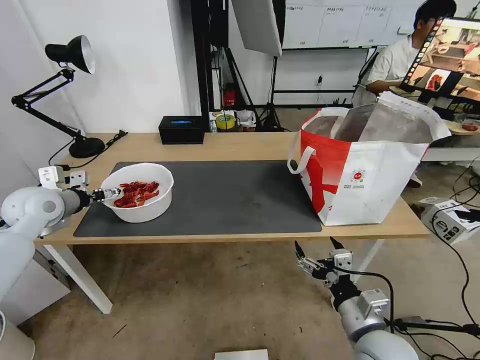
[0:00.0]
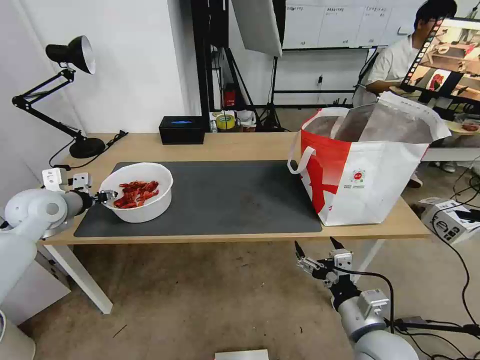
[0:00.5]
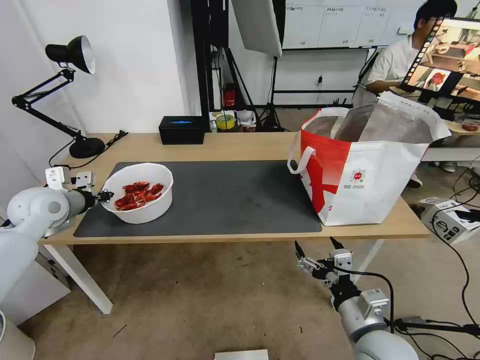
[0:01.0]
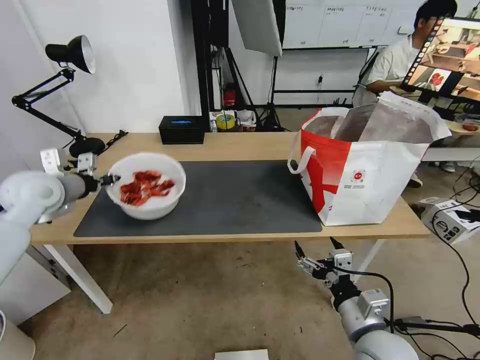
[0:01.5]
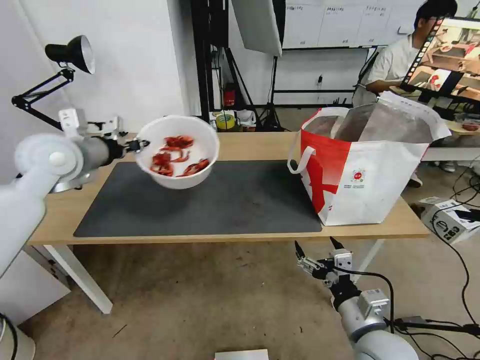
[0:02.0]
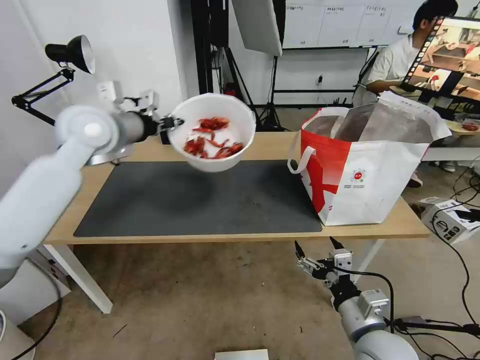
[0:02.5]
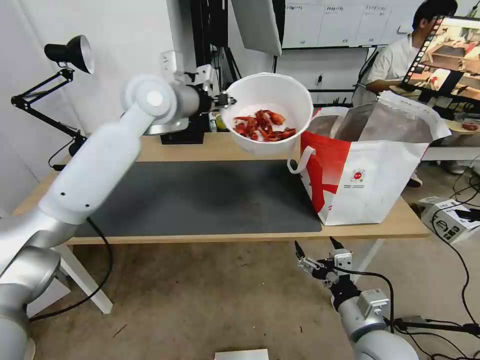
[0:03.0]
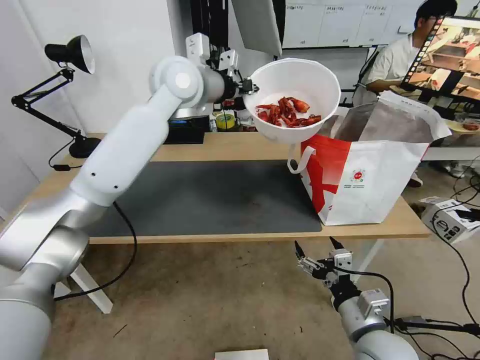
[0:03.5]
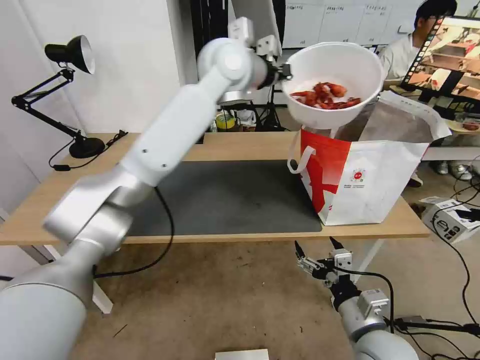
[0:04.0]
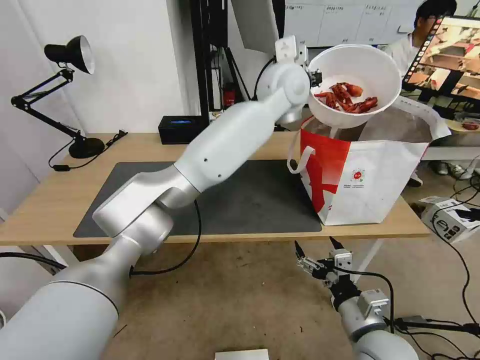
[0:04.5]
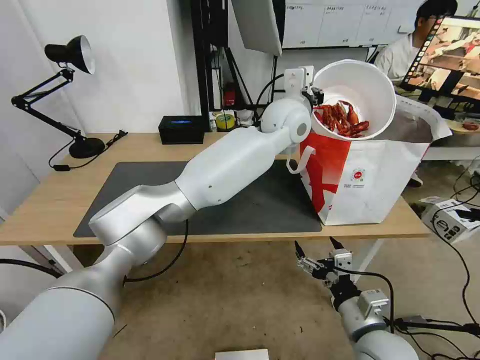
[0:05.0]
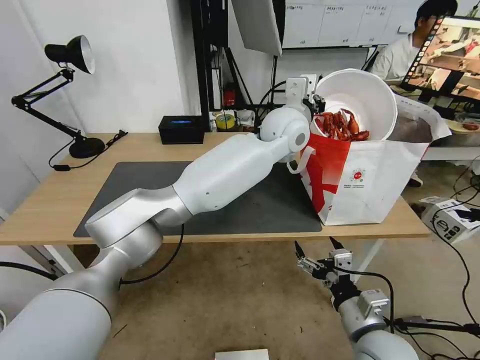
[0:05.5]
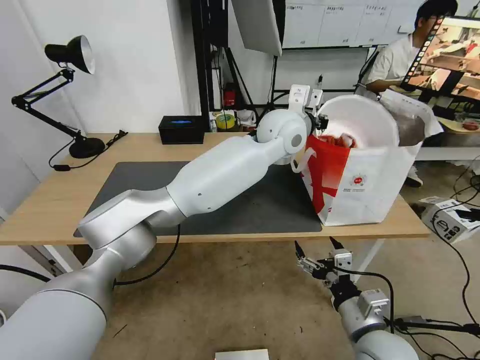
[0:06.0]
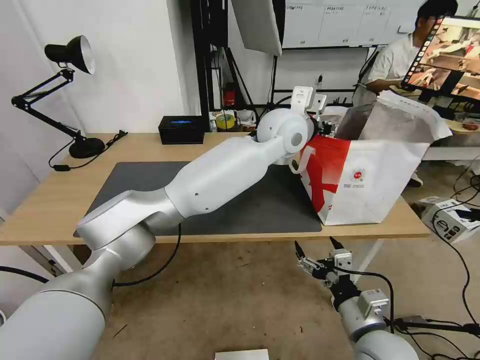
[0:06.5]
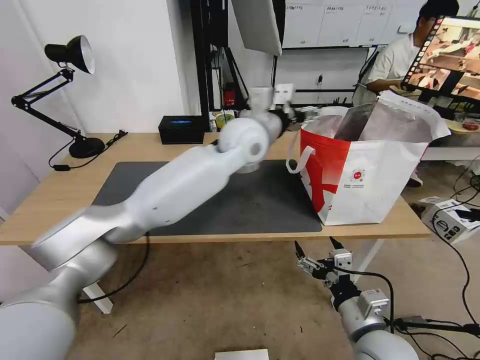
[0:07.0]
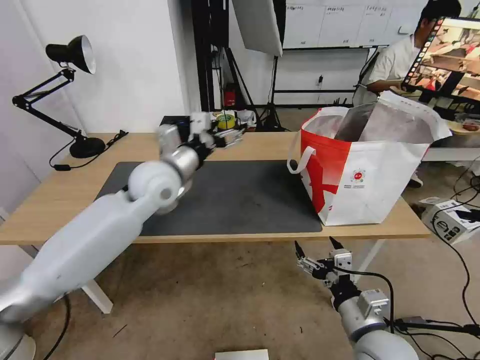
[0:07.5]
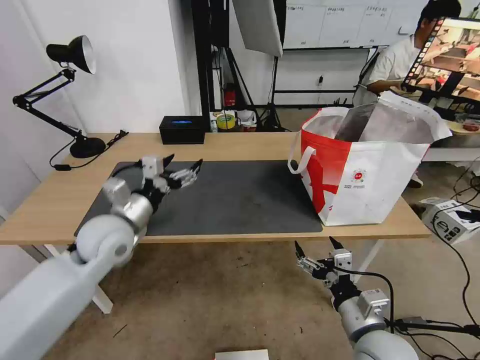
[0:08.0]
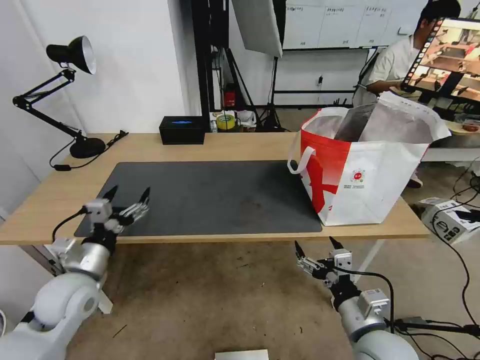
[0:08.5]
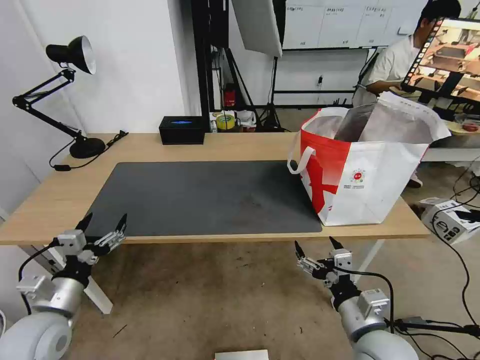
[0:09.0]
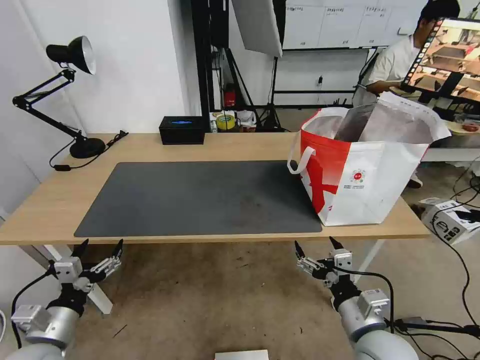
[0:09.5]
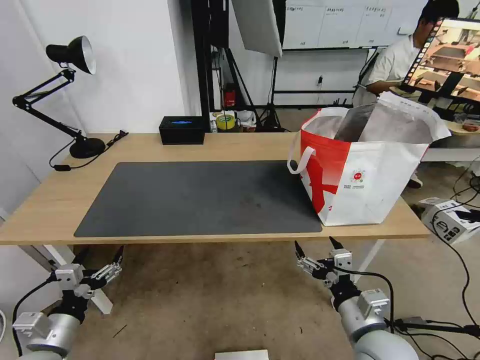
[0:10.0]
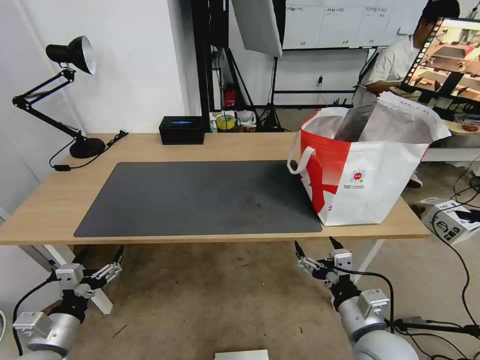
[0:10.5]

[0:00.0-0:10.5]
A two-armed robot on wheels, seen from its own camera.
Task of the whole recording: Pick up the trash from the table and place it into the takeout bag.
0:00.0 to 0:02.0: The left gripper heads upward and to the right, covering about 15 cm, and closes up.
0:02.0 to 0:04.0: The left gripper shifts approximately 30 cm to the right.
0:04.0 to 0:06.5: The left gripper shifts some 15 cm to the right and downward, and opens up.
0:06.5 to 0:08.5: The left gripper travels to the left, backward and downward by about 50 cm, and opens its fingers.
0:08.5 to 0:10.5: The left gripper goes about 15 cm backward and downward.

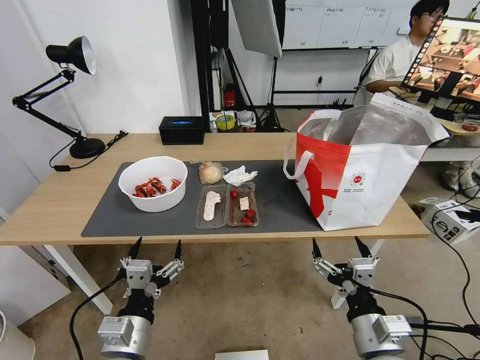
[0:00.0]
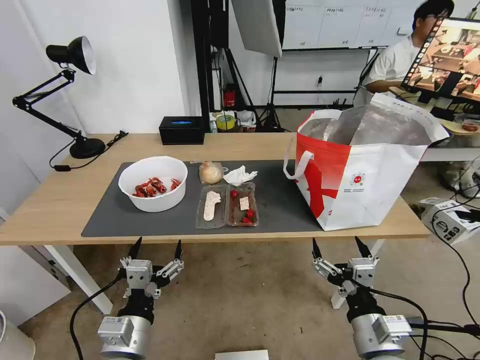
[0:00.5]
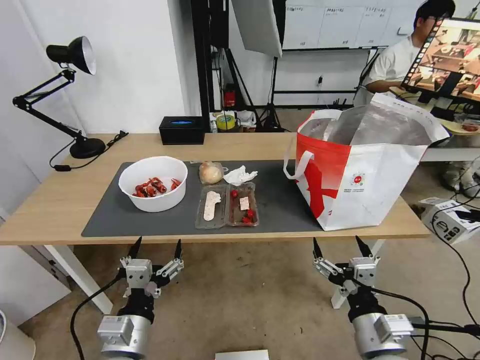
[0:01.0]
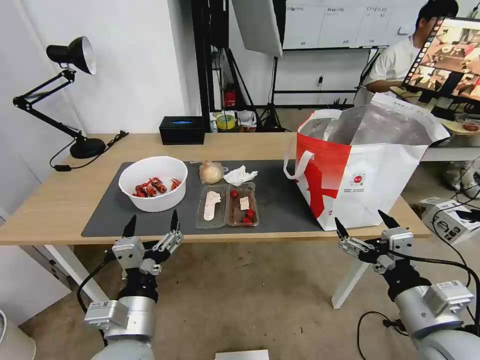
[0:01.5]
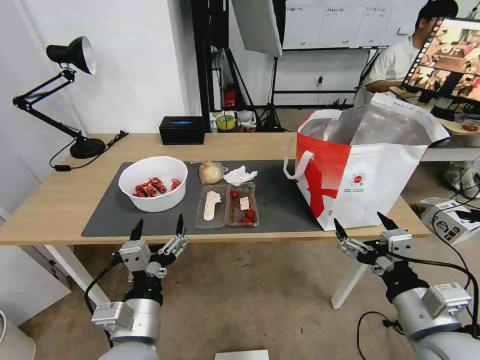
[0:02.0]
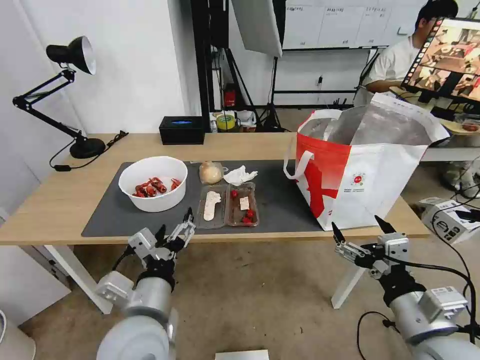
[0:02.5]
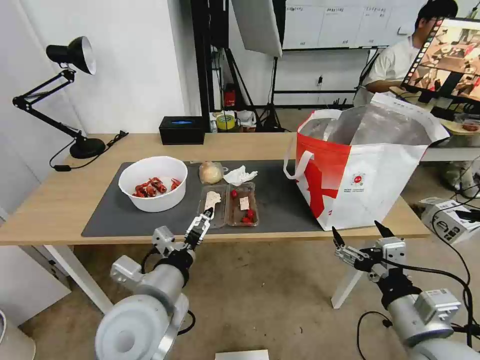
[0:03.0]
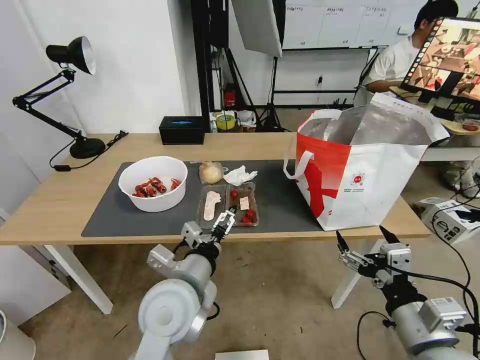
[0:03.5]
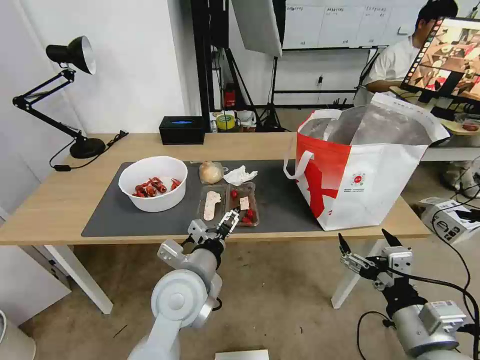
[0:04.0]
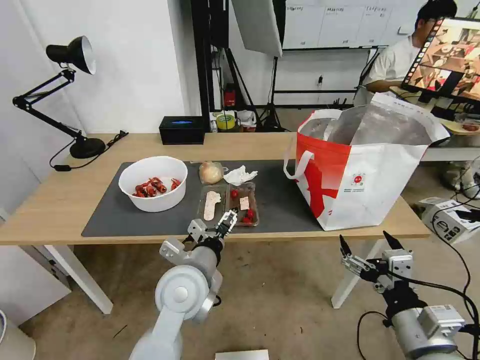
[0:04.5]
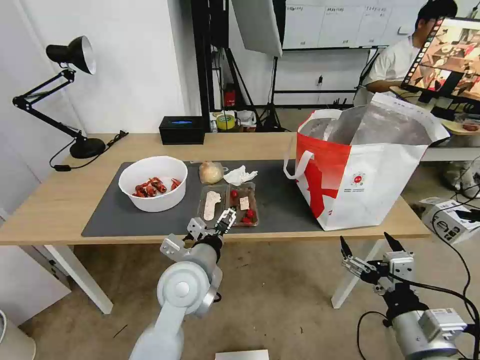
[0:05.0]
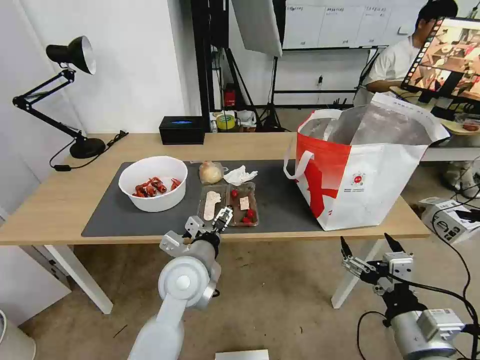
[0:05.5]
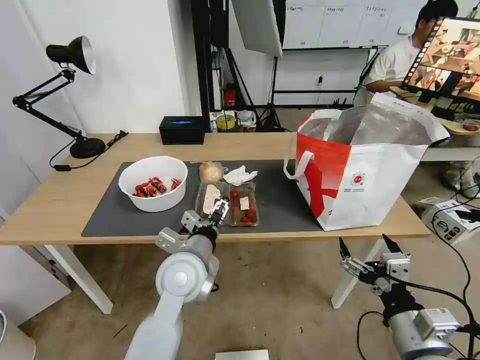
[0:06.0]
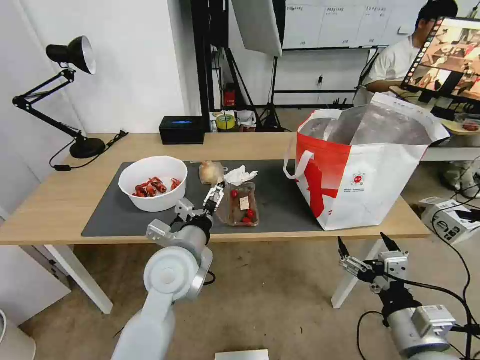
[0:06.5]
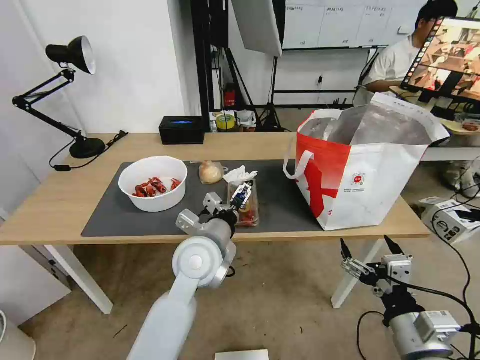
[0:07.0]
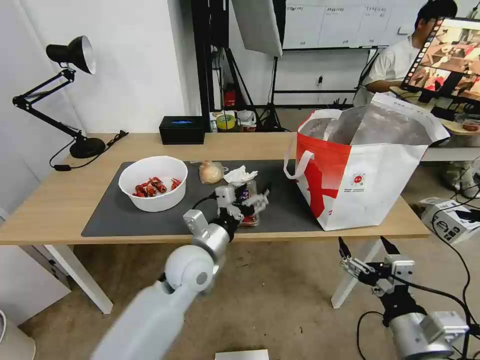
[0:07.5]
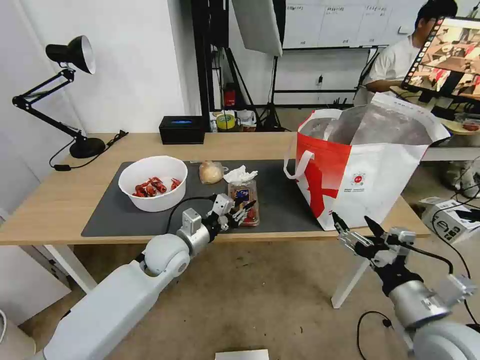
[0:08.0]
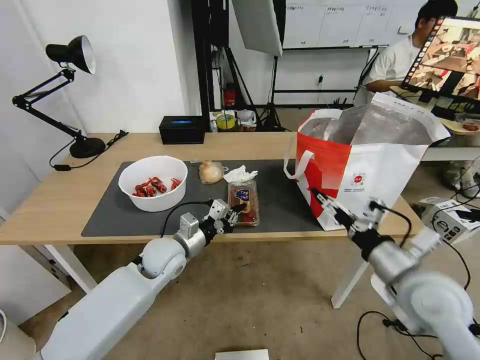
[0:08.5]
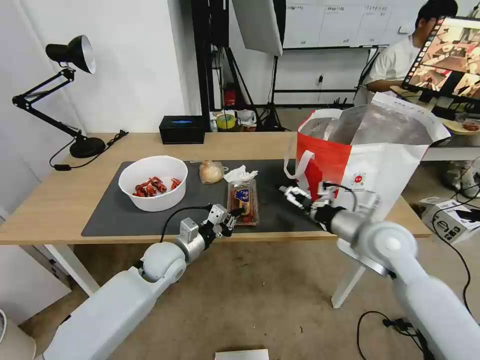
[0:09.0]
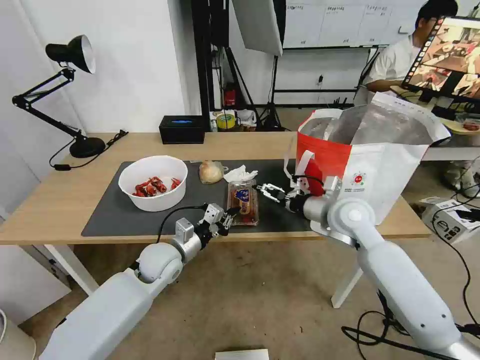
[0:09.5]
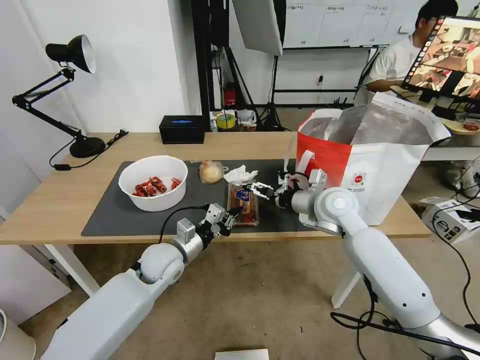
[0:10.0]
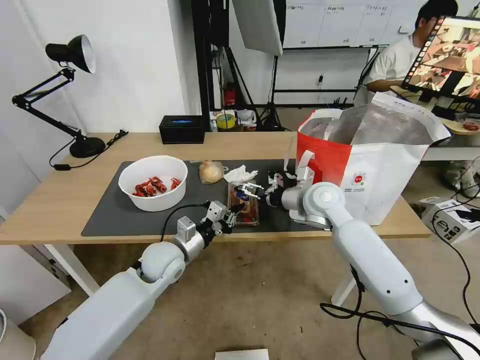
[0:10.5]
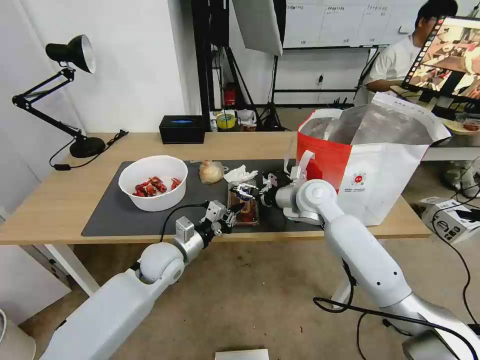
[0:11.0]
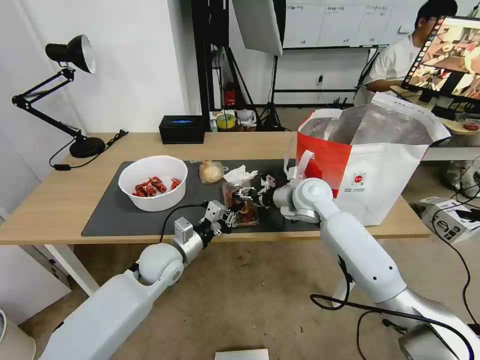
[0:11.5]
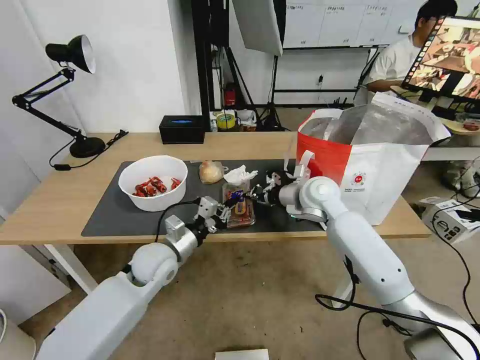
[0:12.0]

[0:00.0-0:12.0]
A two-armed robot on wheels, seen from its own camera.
Task of the whole recording: Pick up the trash from the table and place it into the takeout bag.
0:02.0 to 0:04.0: The left gripper travels forward and to the right by some 15 cm.
0:04.0 to 0:06.0: The grippers make only small movements.
0:06.0 to 0:08.0: The left gripper goes roughly 10 cm forward, to the left and downward, and closes, while the right gripper moves approximately 5 cm.
0:08.0 to 0:10.0: The right gripper moves forward, about 25 cm.
0:10.0 to 0:12.0: The right gripper closes its fingers.

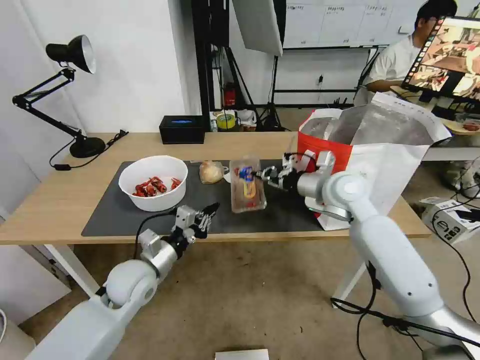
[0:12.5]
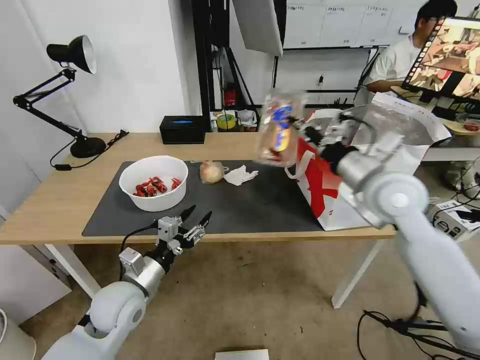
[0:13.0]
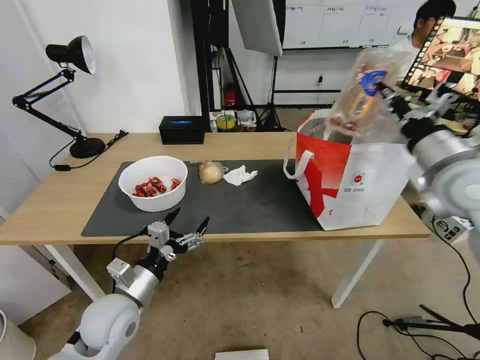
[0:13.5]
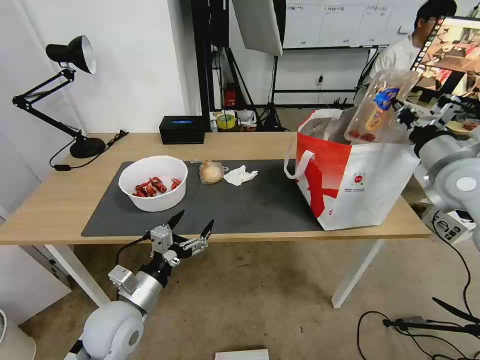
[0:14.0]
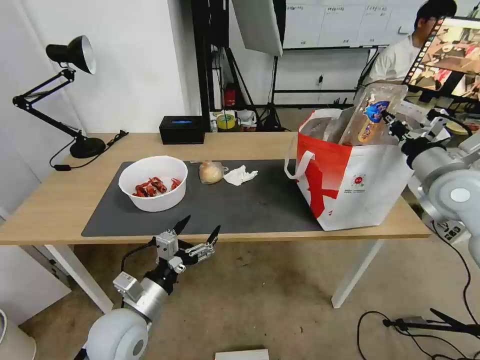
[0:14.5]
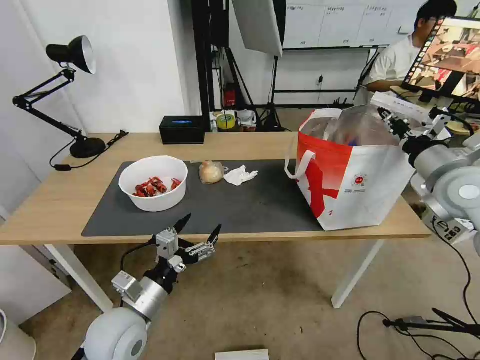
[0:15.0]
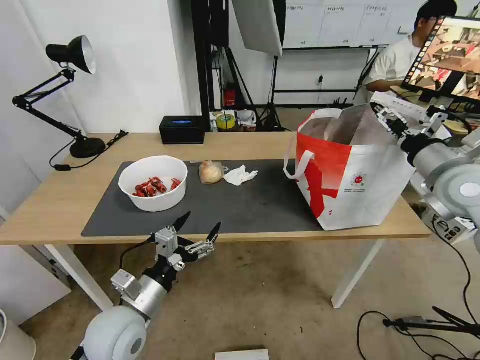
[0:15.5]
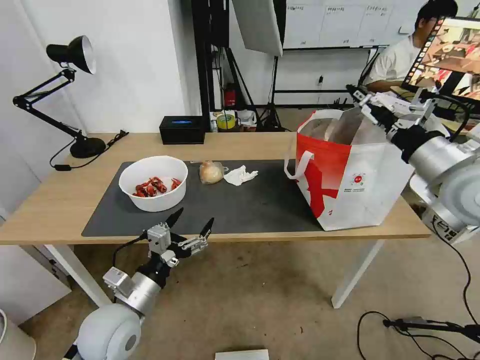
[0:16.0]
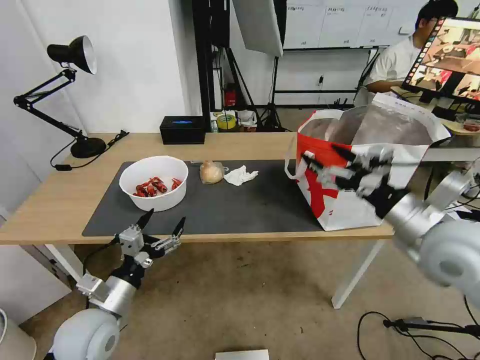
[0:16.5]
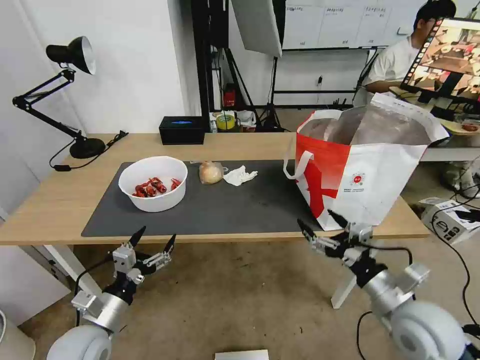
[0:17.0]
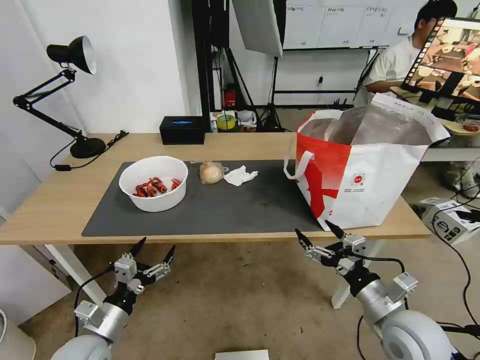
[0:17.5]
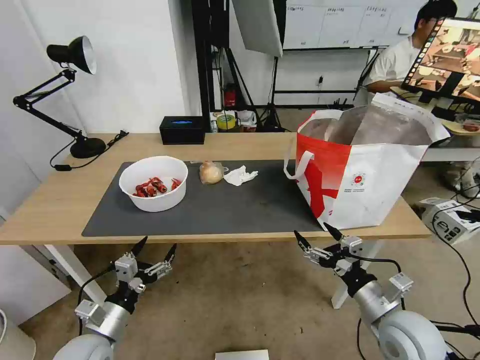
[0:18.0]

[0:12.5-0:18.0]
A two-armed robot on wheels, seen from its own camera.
Task of the whole recording: Pick up the trash from the table and place it into the takeout bag.
0:12.5 to 0:14.5: The right gripper goes approximately 15 cm to the right, while the left gripper shifts about 10 cm backward, and opens its fingers.
0:14.5 to 0:16.0: The right gripper moves about 10 cm, and opens up.
0:16.0 to 0:18.0: The left gripper shifts some 10 cm downward and to the left, while the right gripper goes roughly 30 cm downward and backward.
